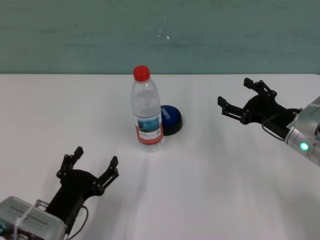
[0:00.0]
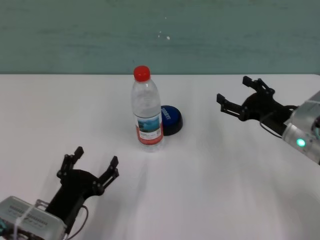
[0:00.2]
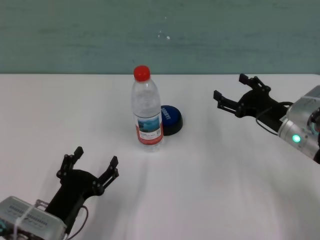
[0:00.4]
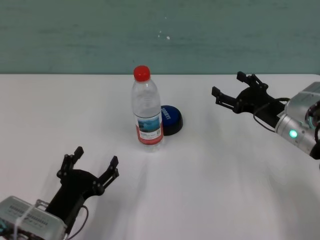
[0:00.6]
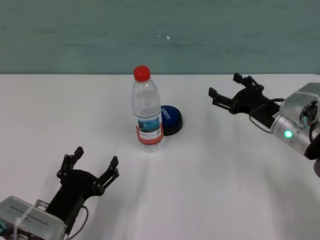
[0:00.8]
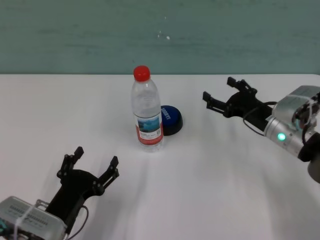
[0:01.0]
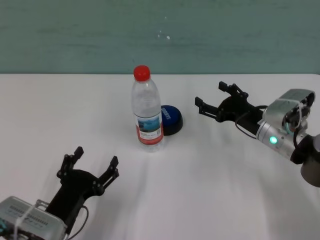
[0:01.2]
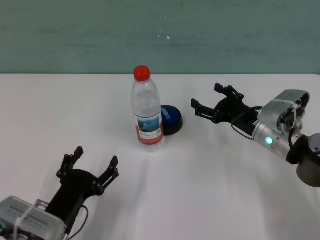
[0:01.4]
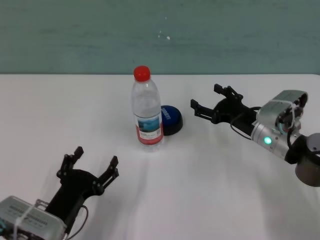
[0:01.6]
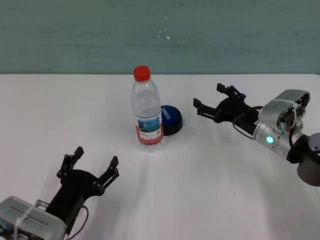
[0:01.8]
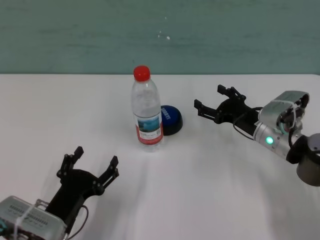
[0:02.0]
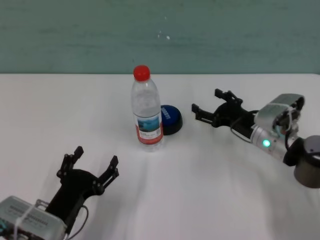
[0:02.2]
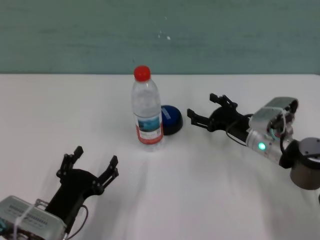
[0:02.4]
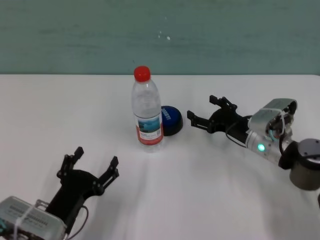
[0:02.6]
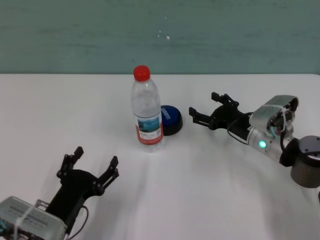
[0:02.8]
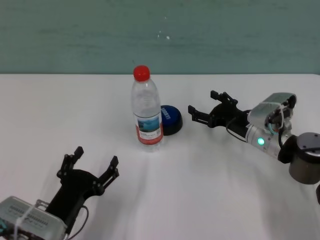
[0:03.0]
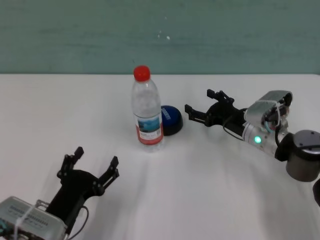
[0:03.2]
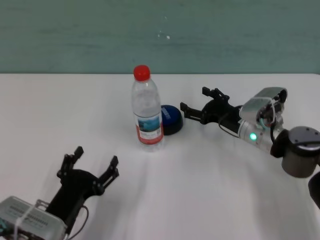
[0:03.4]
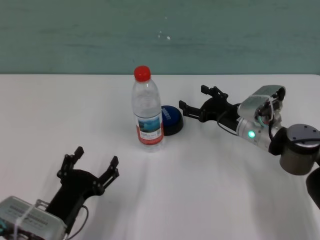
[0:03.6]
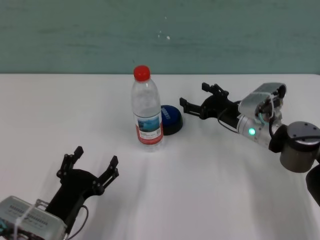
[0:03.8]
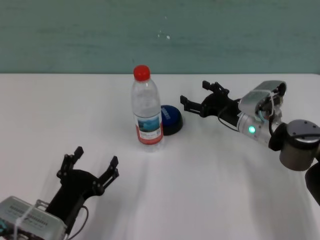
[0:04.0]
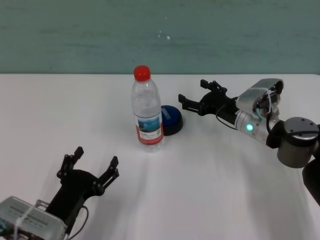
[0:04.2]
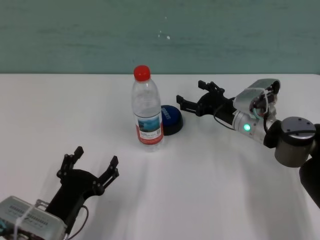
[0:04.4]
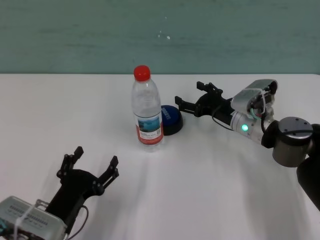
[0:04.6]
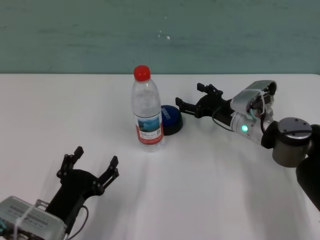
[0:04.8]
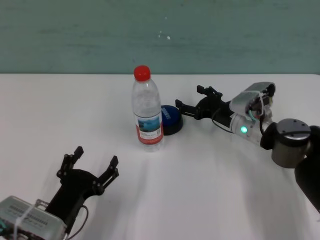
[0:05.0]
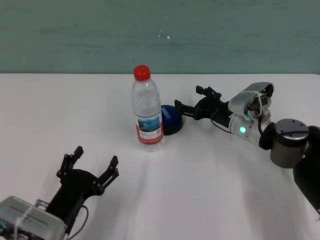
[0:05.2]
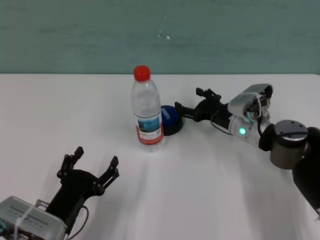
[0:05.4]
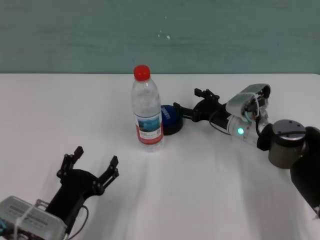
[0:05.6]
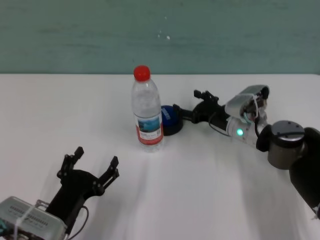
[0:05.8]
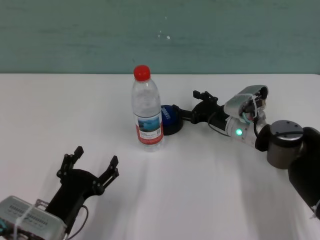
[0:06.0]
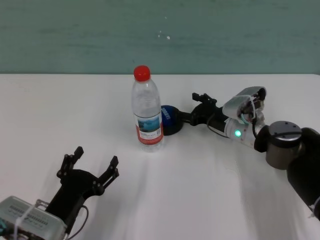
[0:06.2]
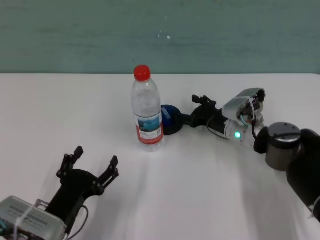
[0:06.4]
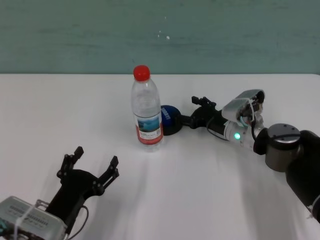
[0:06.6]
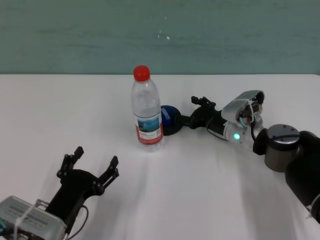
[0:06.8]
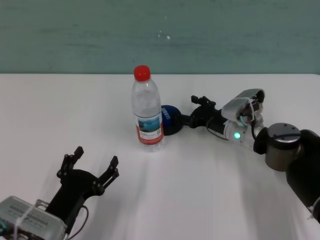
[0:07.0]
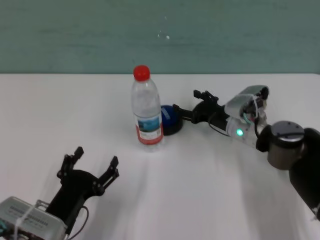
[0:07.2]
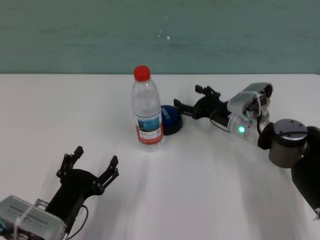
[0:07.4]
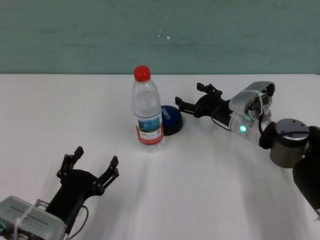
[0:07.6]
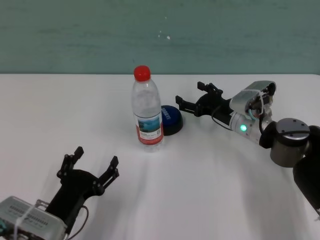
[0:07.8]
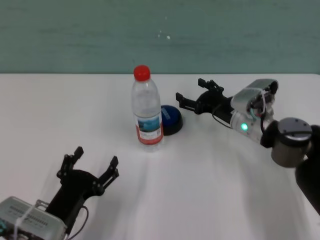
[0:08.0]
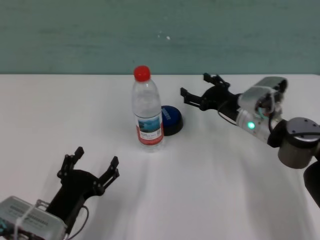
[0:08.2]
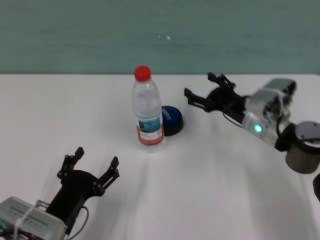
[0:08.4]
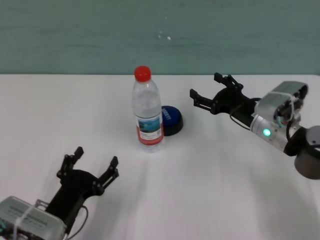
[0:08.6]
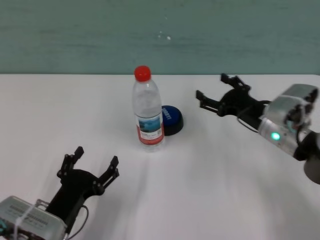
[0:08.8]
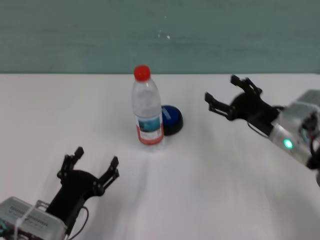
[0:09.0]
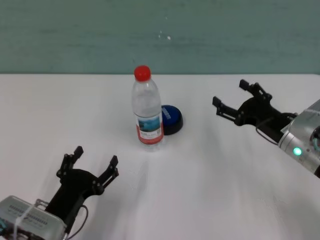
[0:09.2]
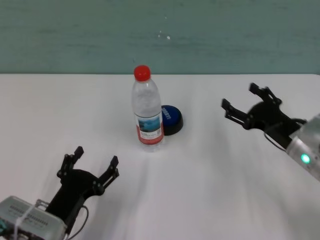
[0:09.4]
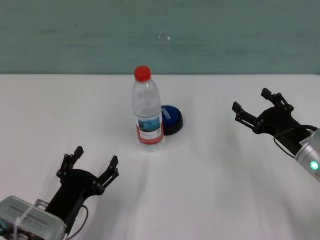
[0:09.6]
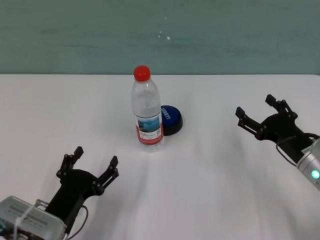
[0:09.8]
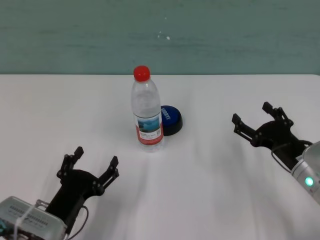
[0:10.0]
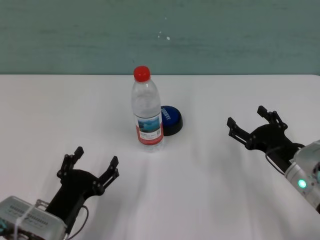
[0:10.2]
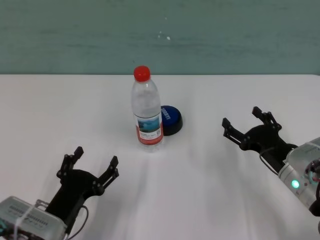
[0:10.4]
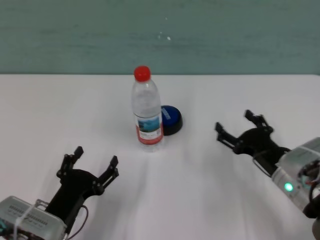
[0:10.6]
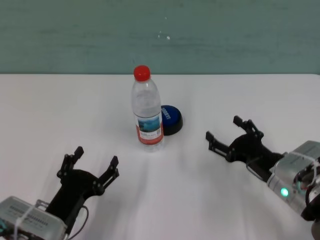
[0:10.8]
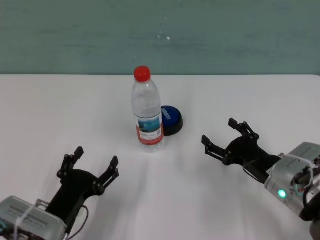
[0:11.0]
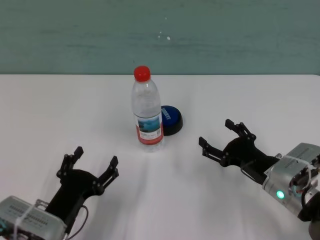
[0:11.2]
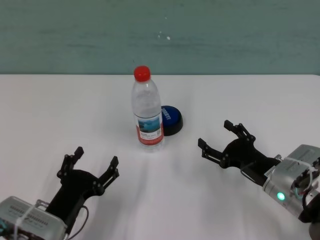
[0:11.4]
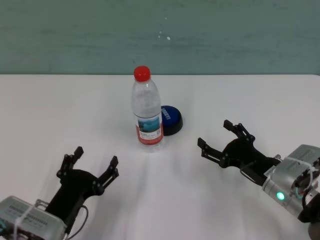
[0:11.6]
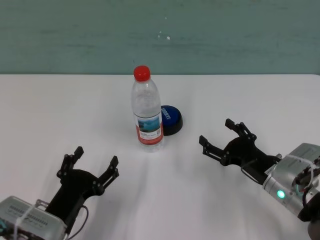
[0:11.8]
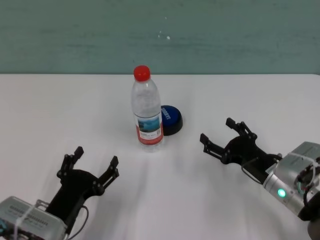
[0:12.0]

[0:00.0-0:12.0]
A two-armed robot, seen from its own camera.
Task of the whole recording: after avoiding the water bottle on the table, press the button.
Step, 0:00.0 to 0:07.2: Press the button blocked by the bottle with right gripper.
